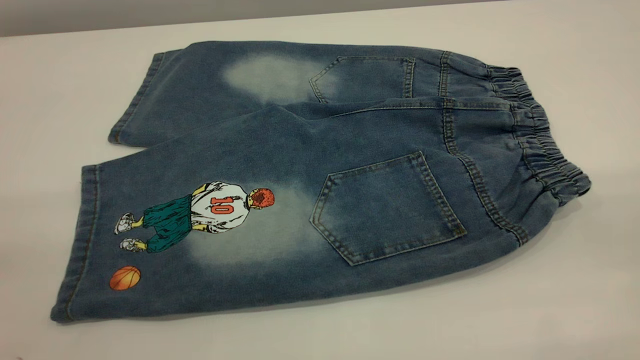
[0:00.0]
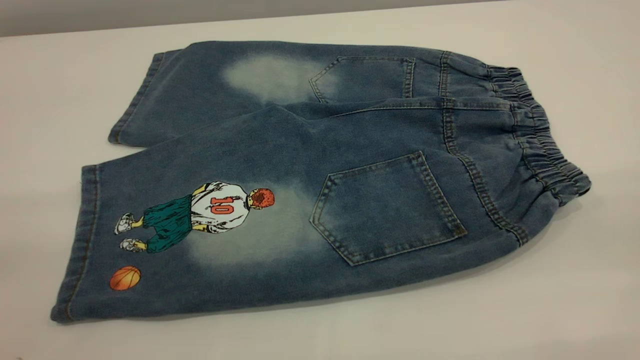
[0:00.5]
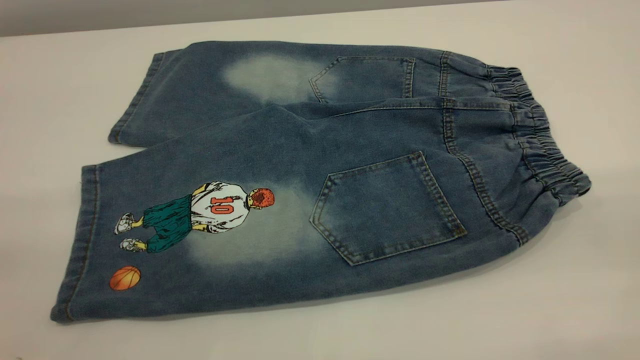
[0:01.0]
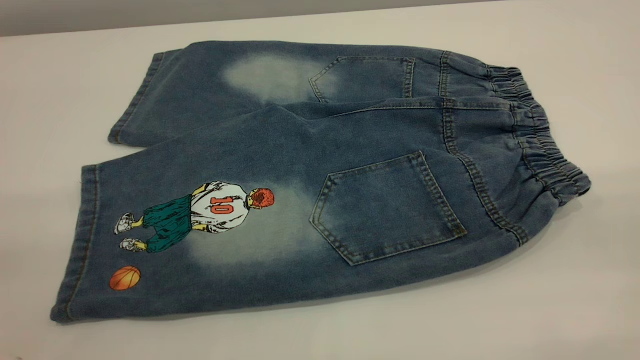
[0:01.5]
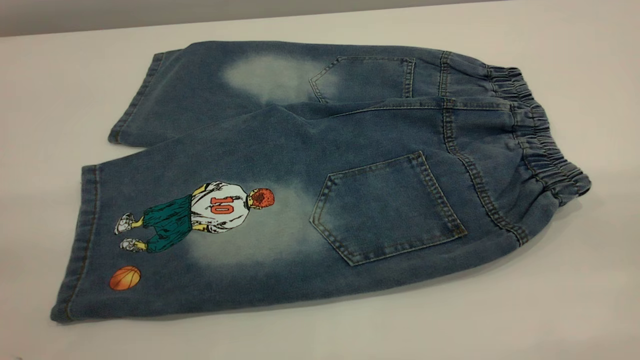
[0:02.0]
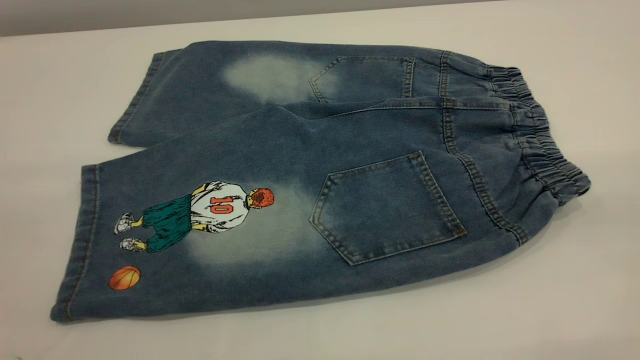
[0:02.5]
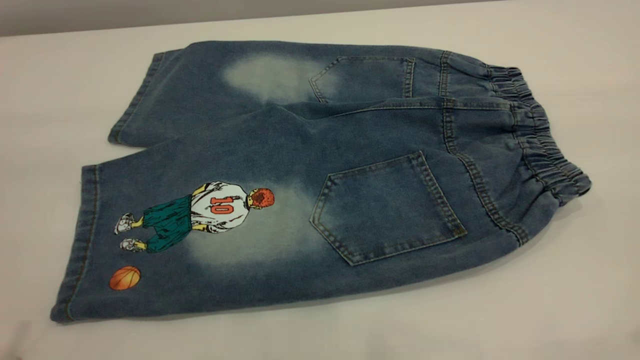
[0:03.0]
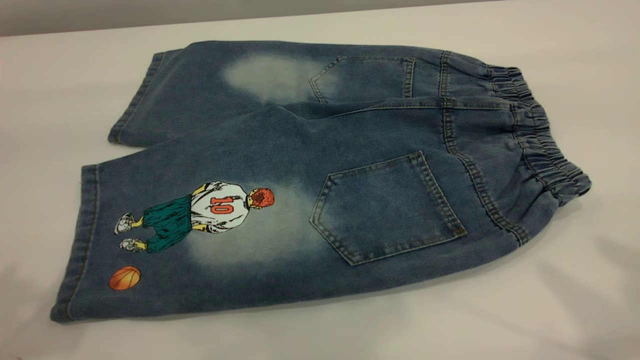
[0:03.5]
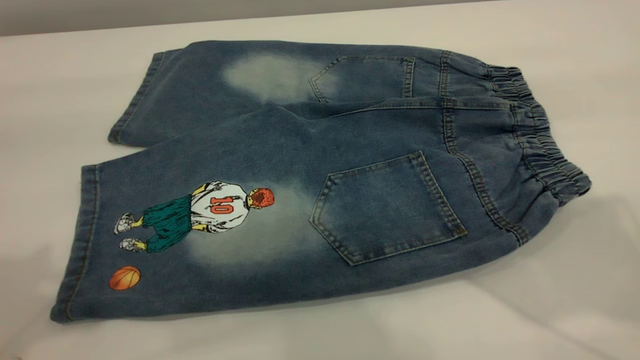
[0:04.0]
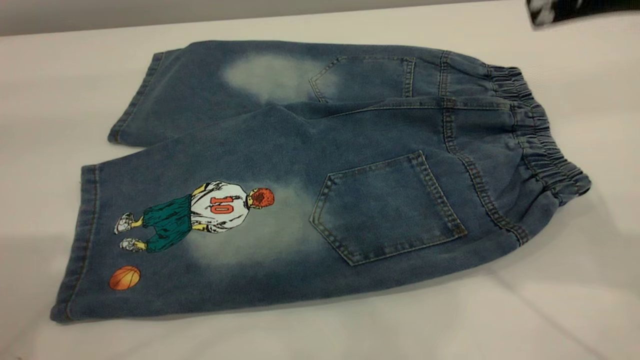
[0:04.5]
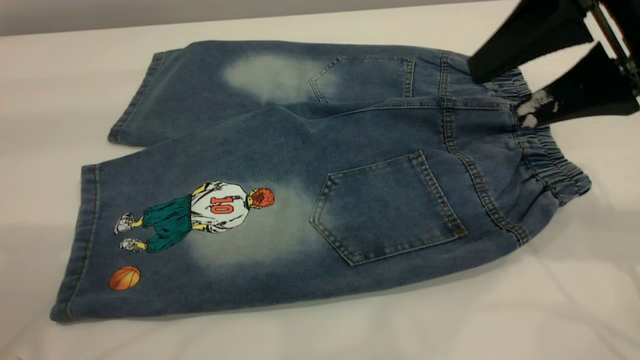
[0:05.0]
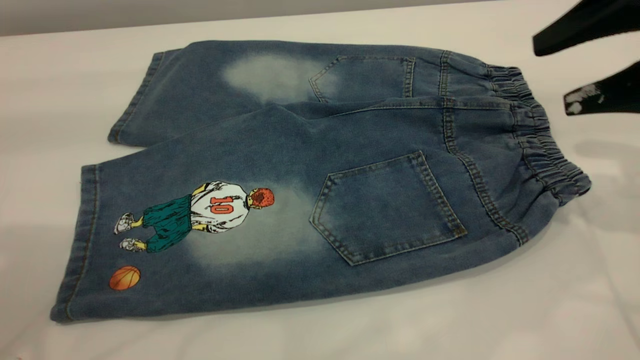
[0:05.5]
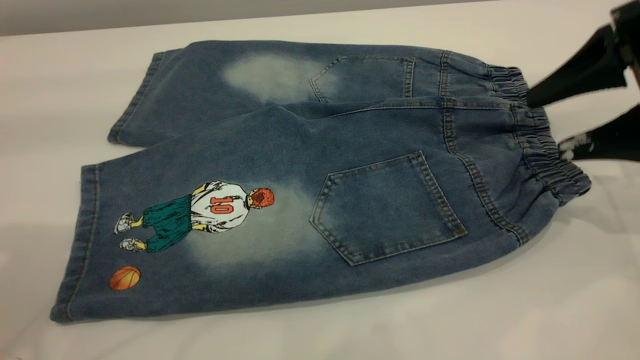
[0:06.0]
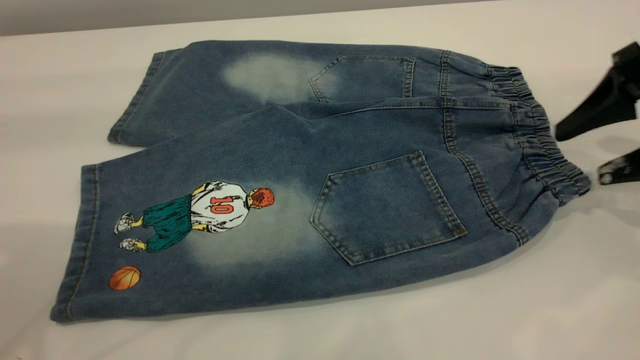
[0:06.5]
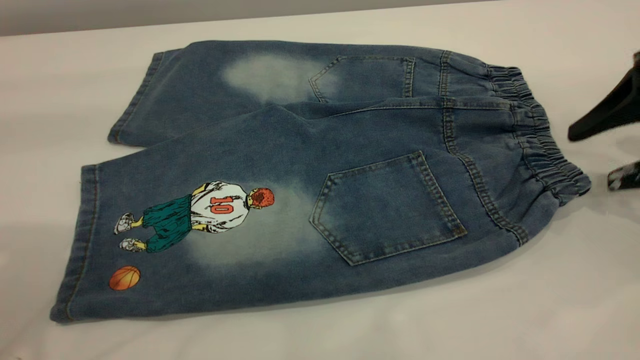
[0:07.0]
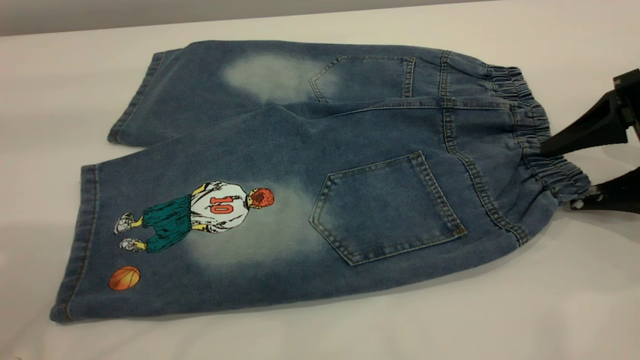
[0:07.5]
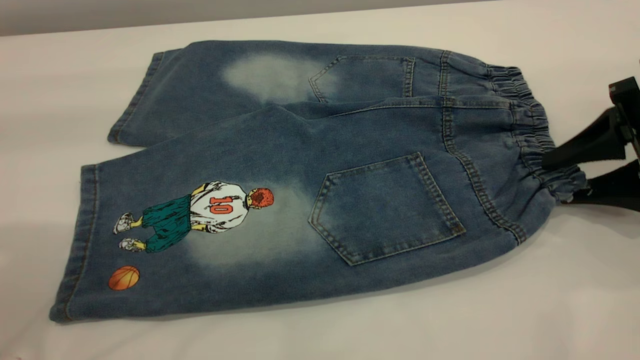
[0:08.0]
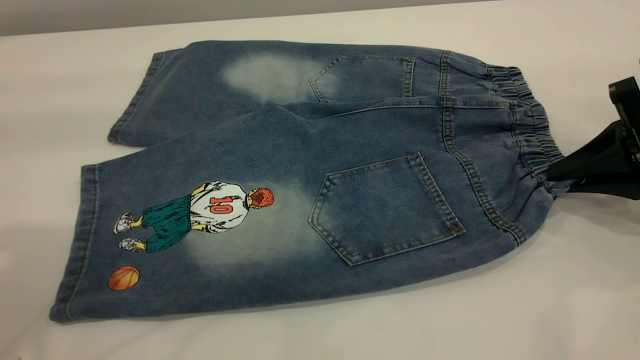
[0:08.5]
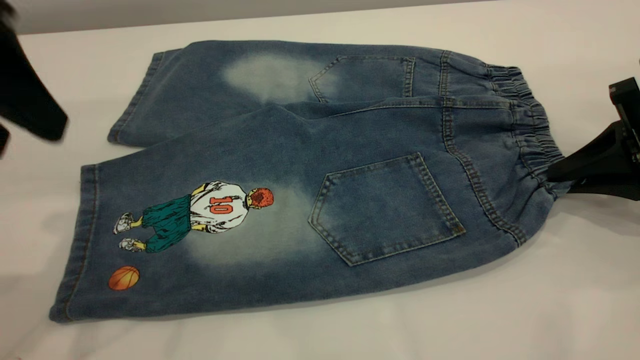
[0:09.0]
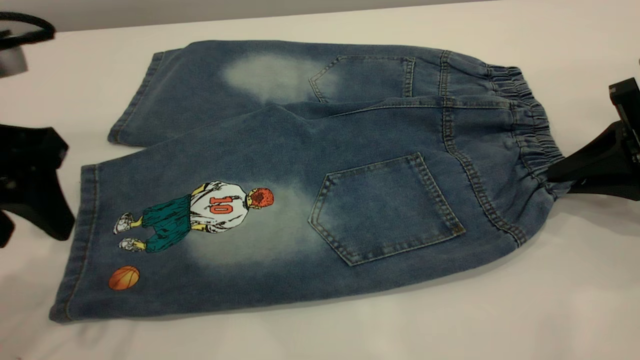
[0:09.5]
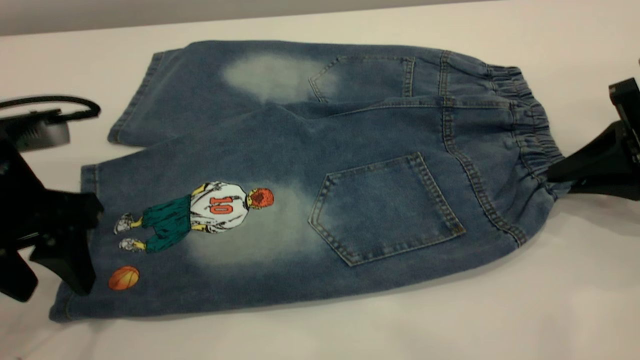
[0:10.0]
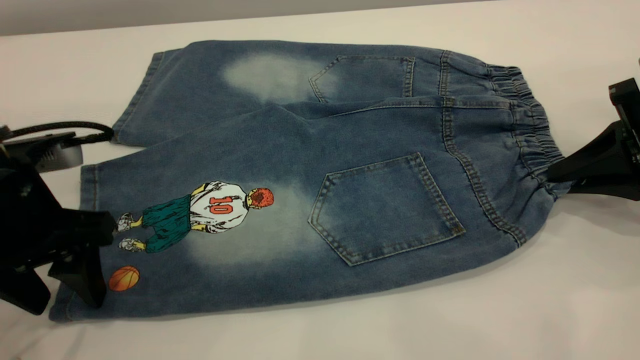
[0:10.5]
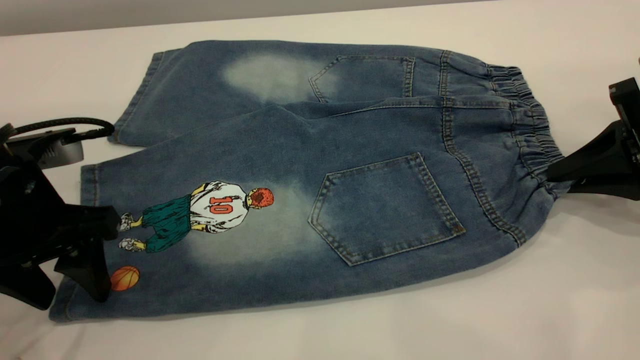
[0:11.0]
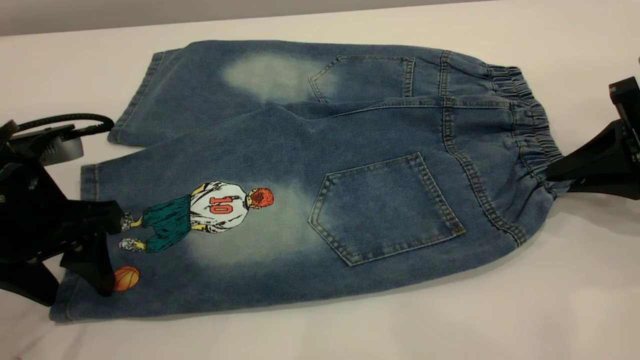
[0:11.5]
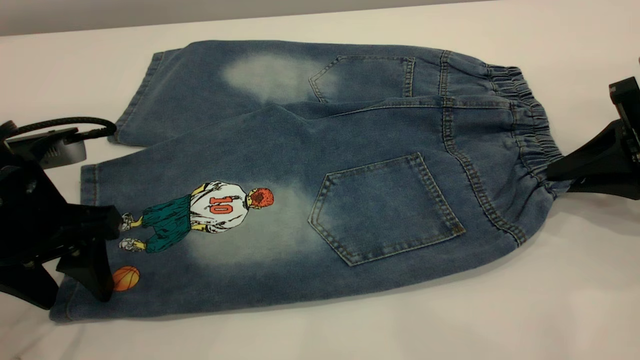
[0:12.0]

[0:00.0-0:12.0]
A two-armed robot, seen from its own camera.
0:00.0 to 0:02.0: Neither gripper changes place.
0:04.0 to 0:06.0: The right gripper heads downward and forward, covering roughly 20 cm.
0:06.0 to 0:08.0: The right gripper heads downward, covering approximately 5 cm, and closes its fingers.
0:08.0 to 0:10.0: The left gripper shifts approximately 20 cm downward. The right gripper closes its fingers.
0:10.0 to 0:12.0: The grippers make only small movements.

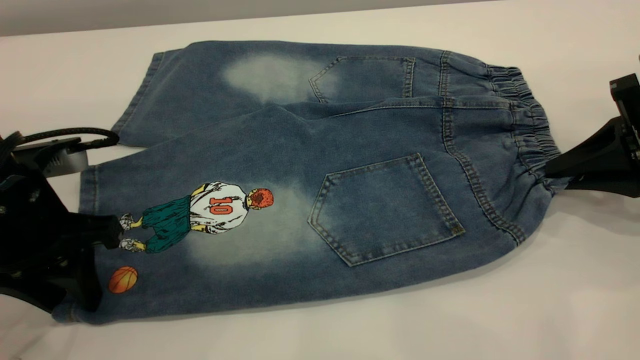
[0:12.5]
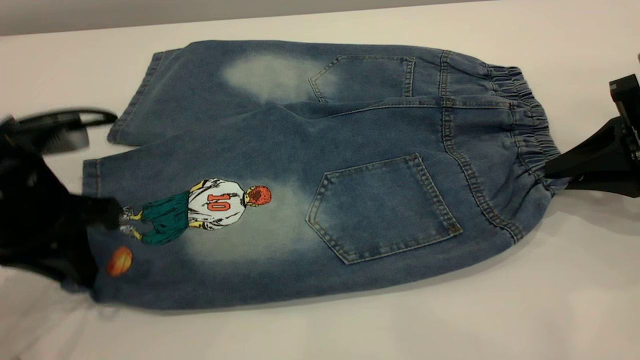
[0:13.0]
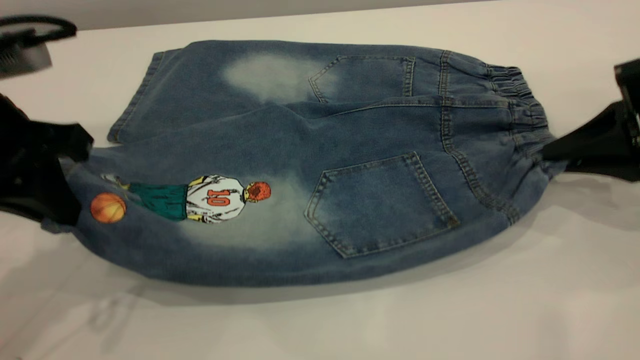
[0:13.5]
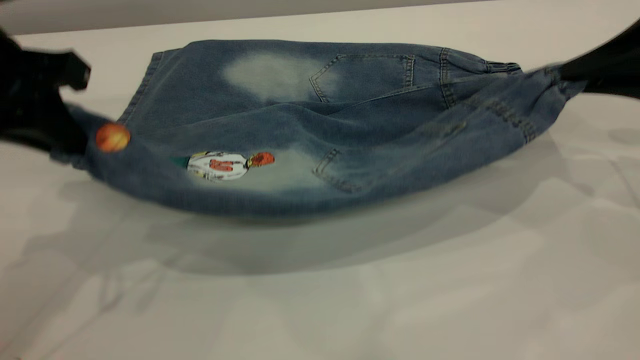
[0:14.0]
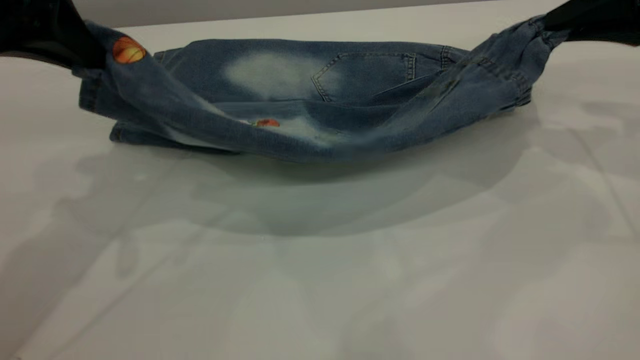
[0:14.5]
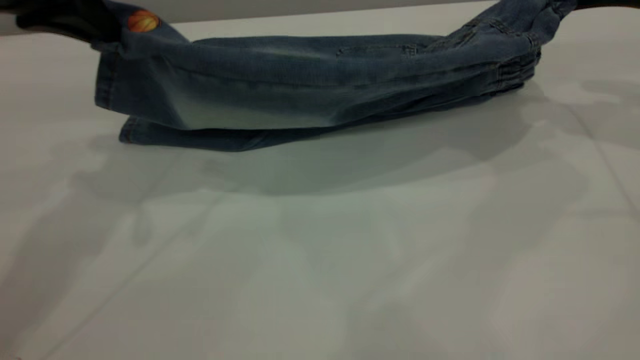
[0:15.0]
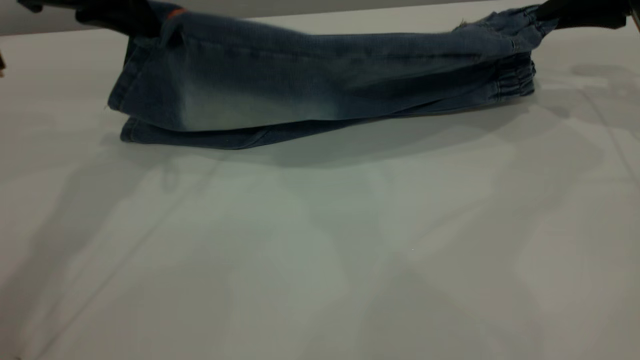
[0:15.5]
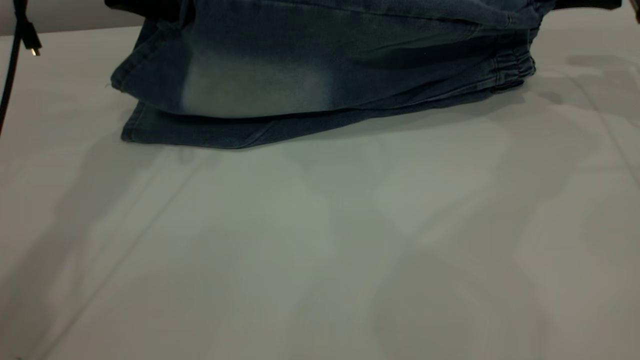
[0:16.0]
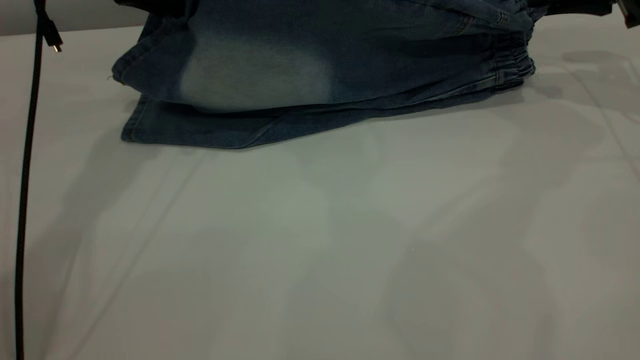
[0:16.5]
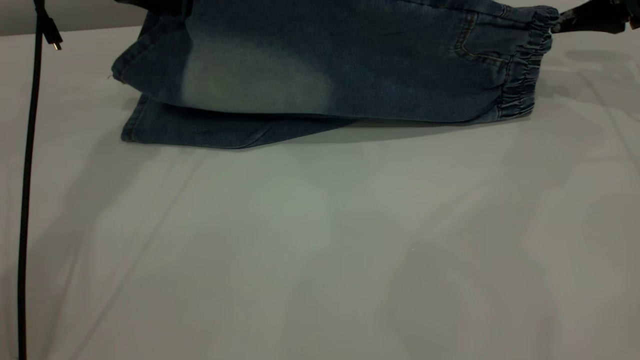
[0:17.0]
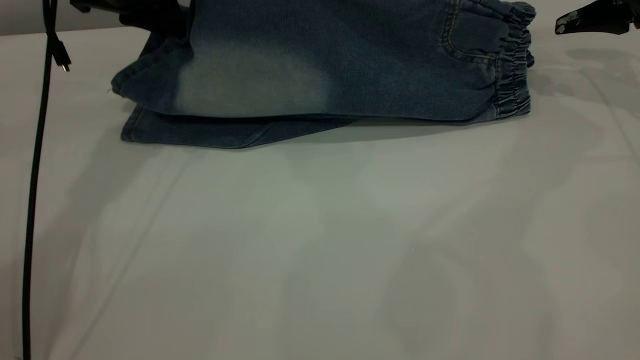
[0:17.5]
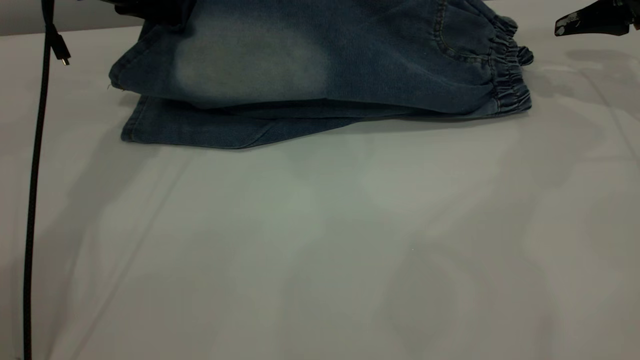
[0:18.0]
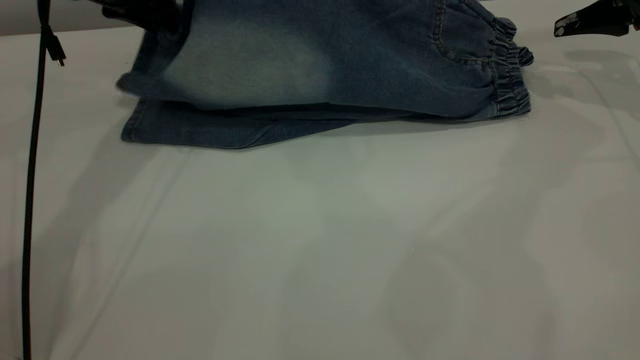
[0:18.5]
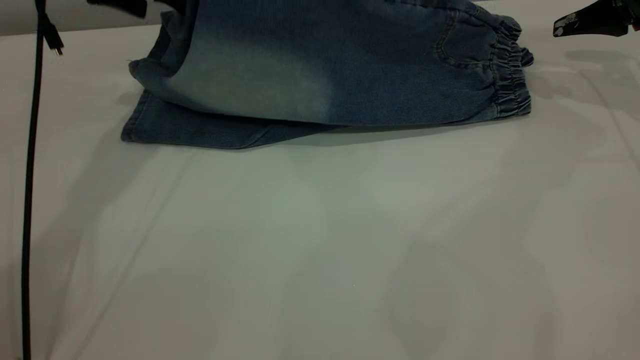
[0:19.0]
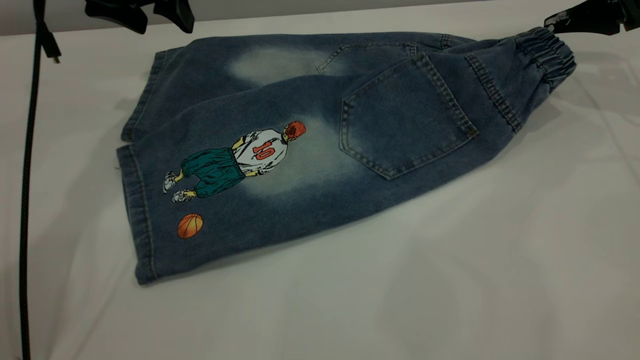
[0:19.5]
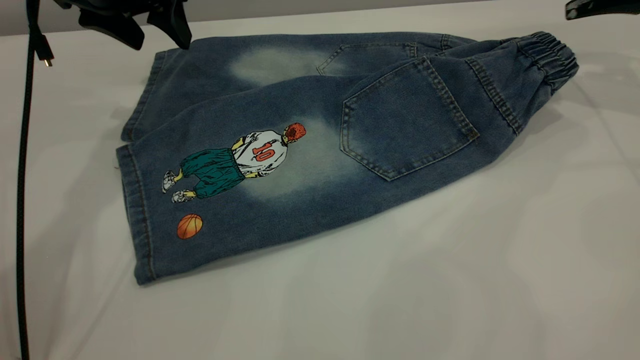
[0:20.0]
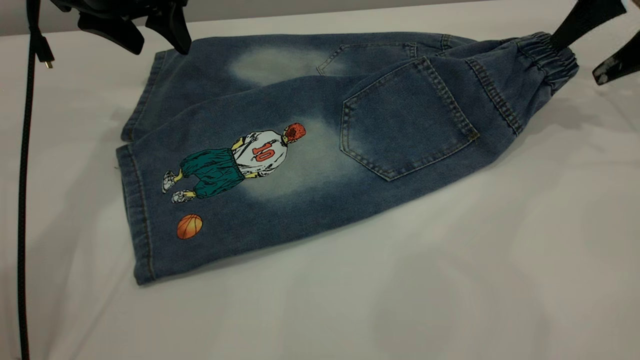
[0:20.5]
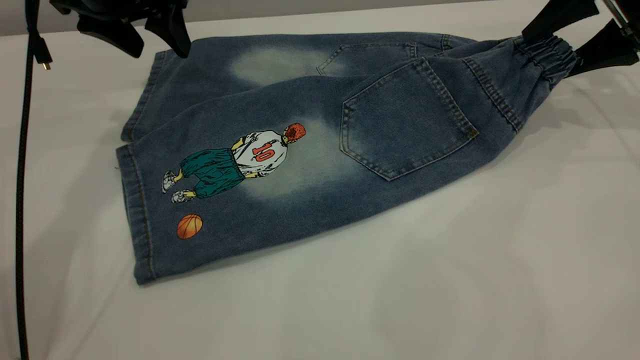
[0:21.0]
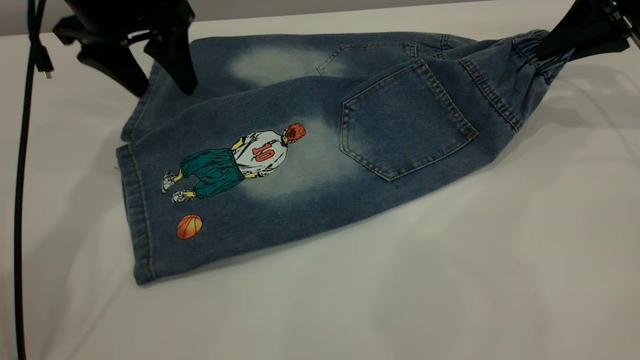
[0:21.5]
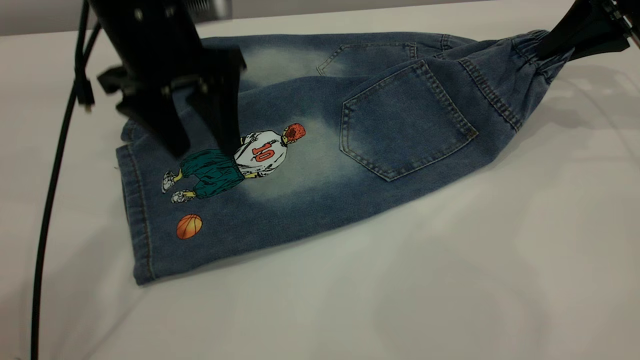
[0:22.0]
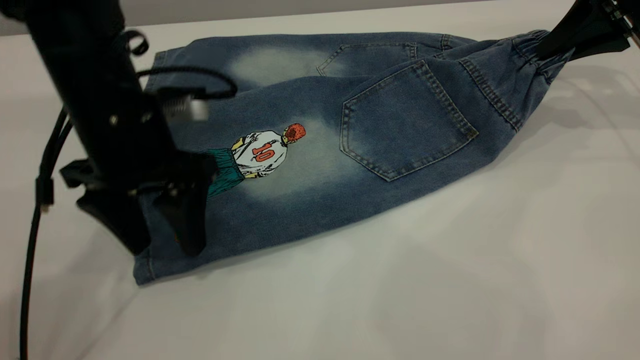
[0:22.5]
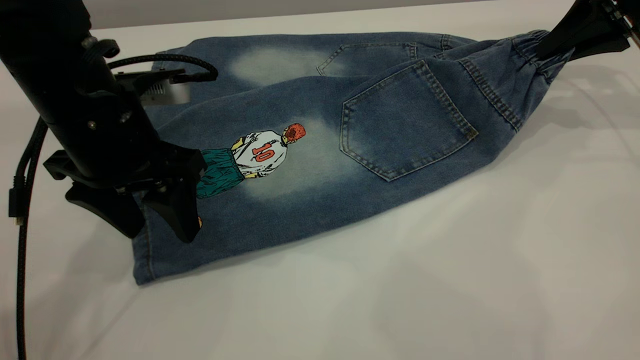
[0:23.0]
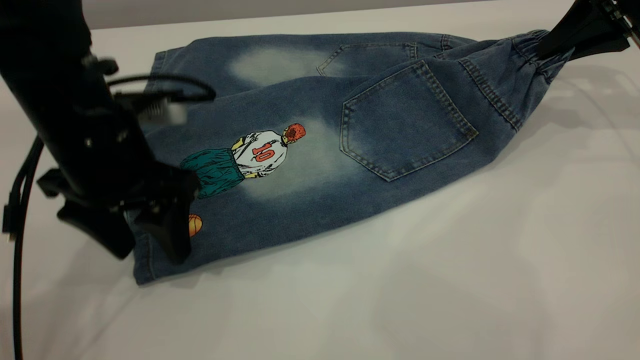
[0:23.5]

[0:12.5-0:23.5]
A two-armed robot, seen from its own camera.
0:12.5 to 0:14.5: The left gripper goes approximately 15 cm upward, and closes its fingers, while the right gripper shifts approximately 15 cm upward and forward.
0:14.5 to 0:16.0: Both grippers travel together forward, about 10 cm.
0:16.0 to 0:18.0: The right gripper opens its fingers.
0:18.0 to 0:20.0: The left gripper opens its fingers.
0:20.0 to 0:21.5: The right gripper closes.
0:21.5 to 0:23.5: The left gripper is displaced backward and downward by approximately 15 cm.
